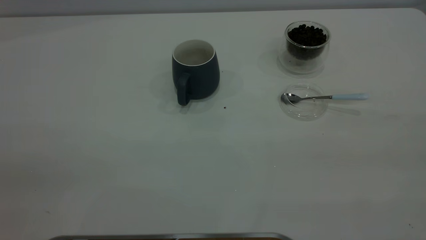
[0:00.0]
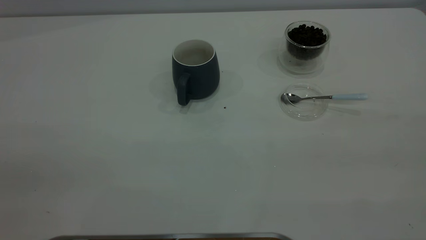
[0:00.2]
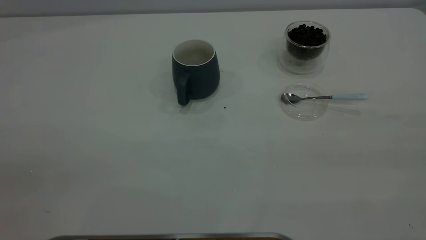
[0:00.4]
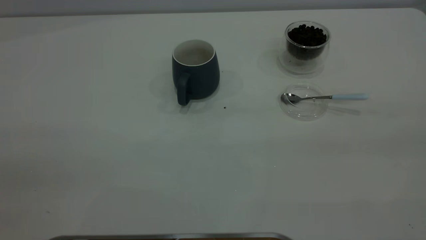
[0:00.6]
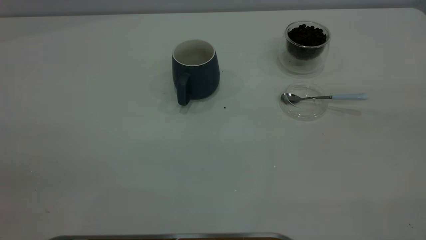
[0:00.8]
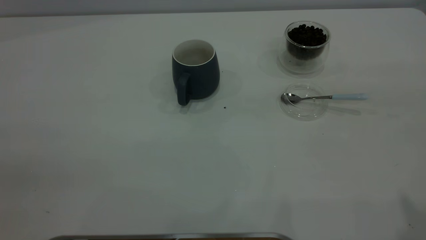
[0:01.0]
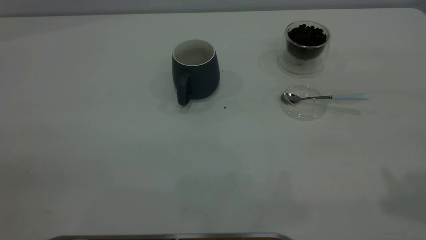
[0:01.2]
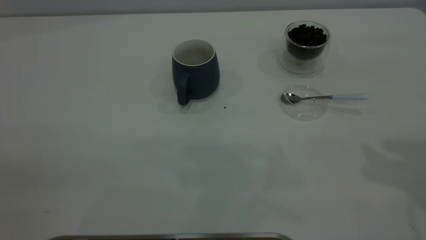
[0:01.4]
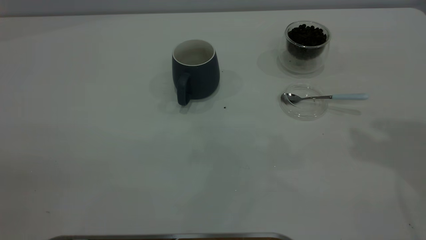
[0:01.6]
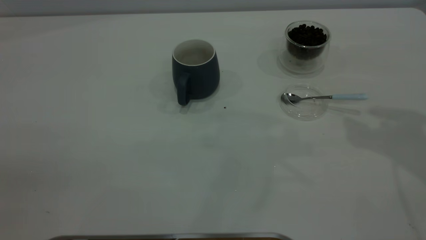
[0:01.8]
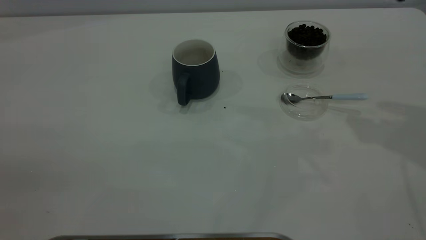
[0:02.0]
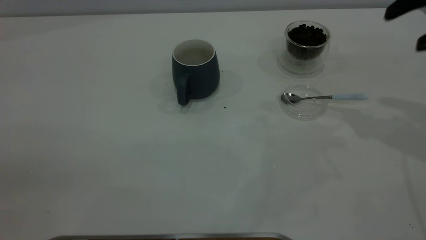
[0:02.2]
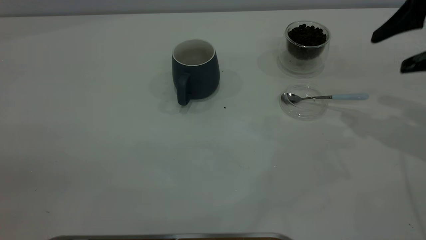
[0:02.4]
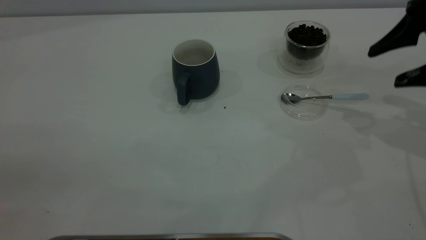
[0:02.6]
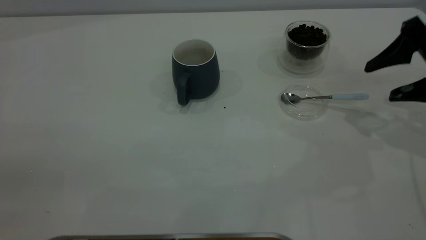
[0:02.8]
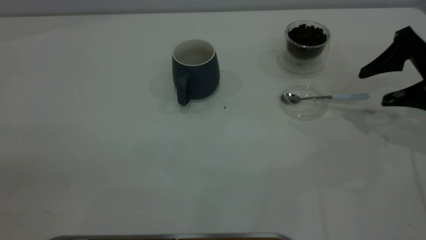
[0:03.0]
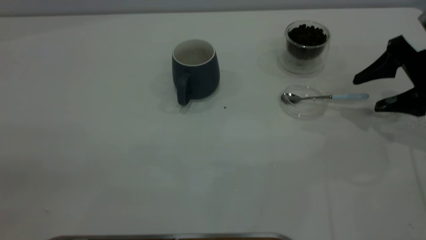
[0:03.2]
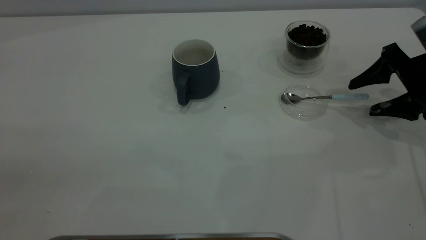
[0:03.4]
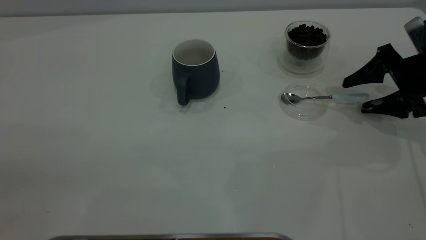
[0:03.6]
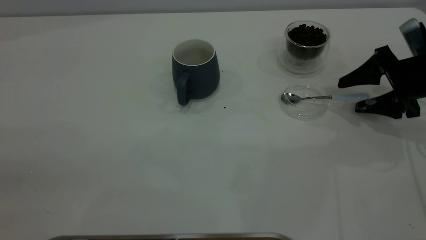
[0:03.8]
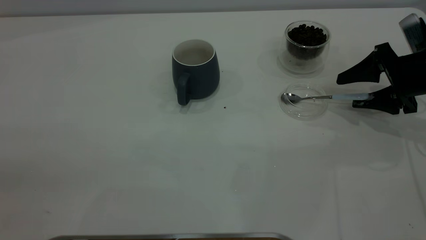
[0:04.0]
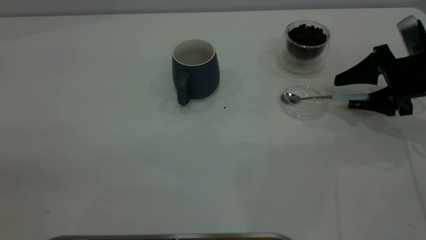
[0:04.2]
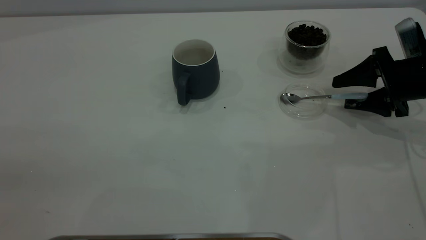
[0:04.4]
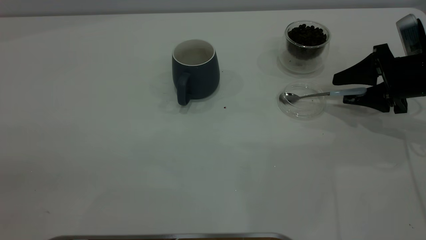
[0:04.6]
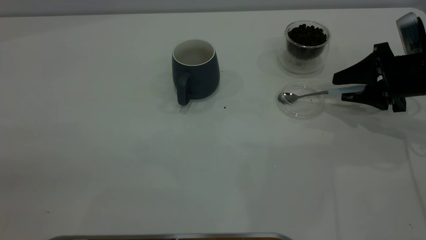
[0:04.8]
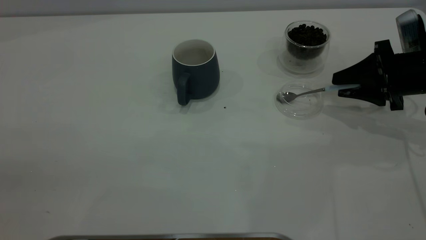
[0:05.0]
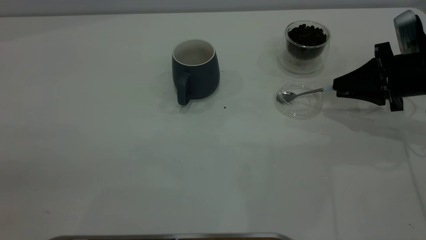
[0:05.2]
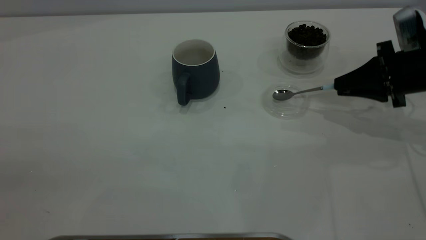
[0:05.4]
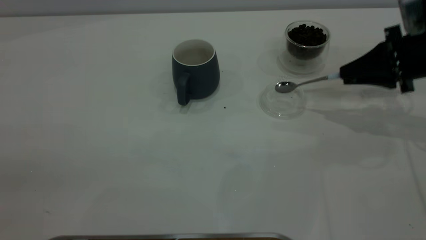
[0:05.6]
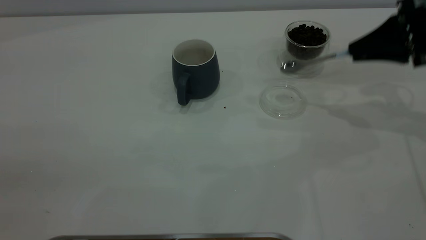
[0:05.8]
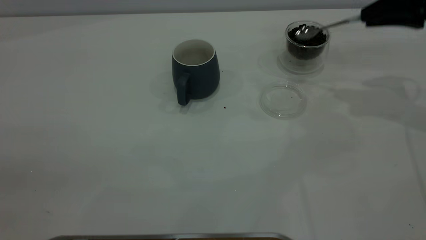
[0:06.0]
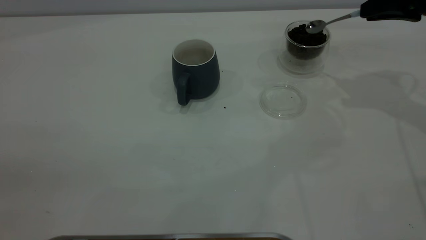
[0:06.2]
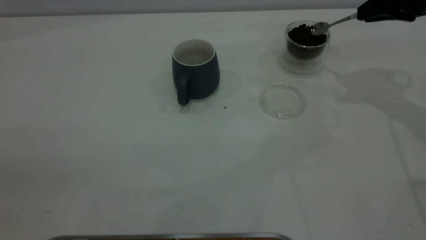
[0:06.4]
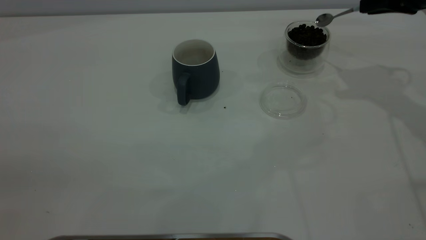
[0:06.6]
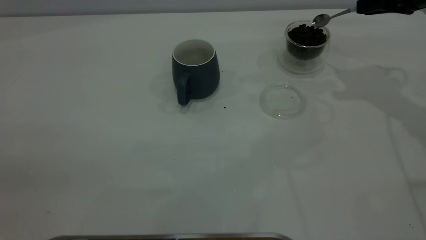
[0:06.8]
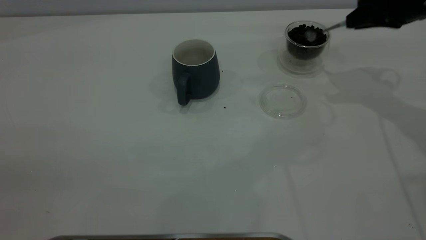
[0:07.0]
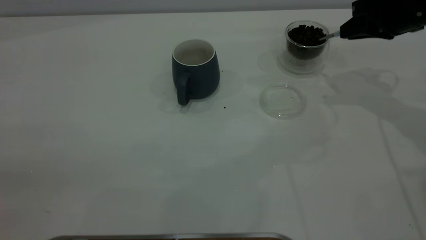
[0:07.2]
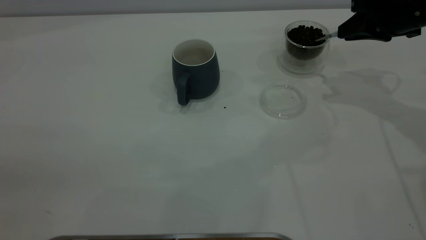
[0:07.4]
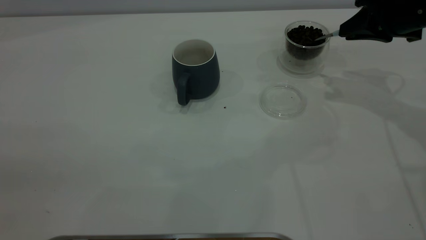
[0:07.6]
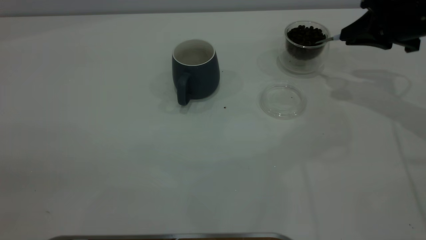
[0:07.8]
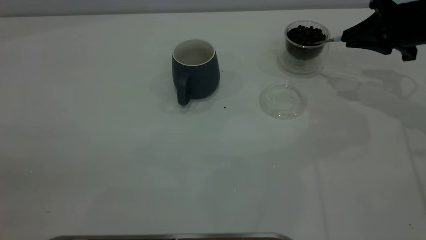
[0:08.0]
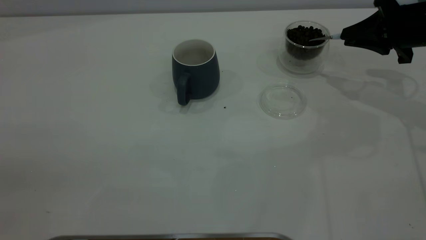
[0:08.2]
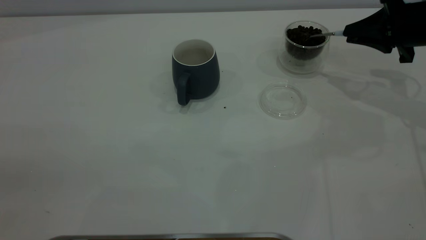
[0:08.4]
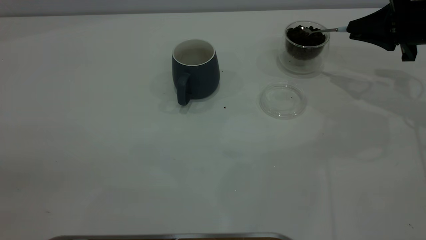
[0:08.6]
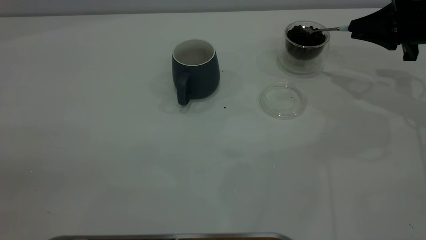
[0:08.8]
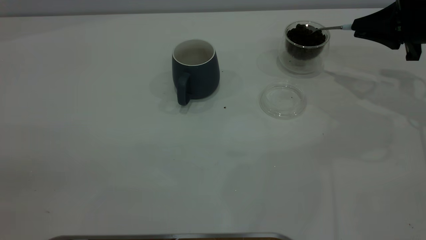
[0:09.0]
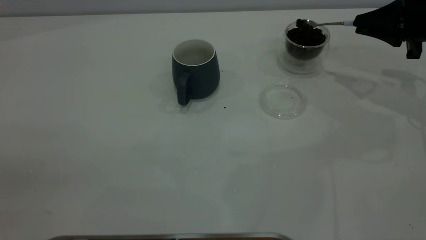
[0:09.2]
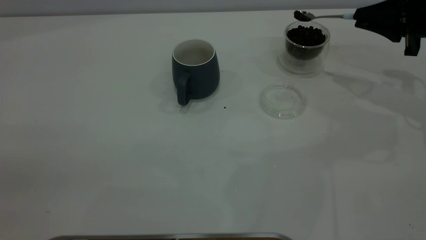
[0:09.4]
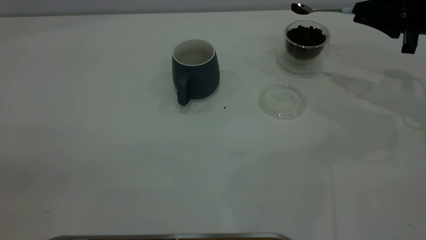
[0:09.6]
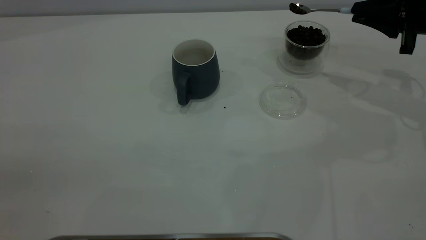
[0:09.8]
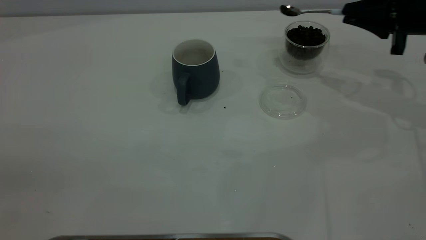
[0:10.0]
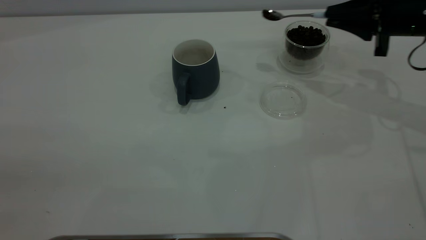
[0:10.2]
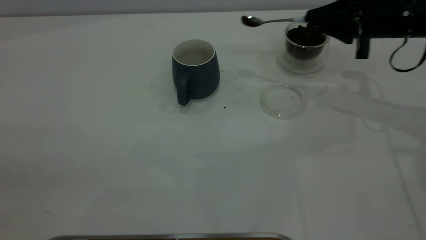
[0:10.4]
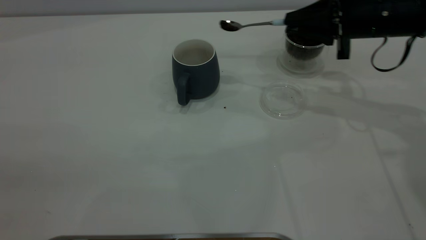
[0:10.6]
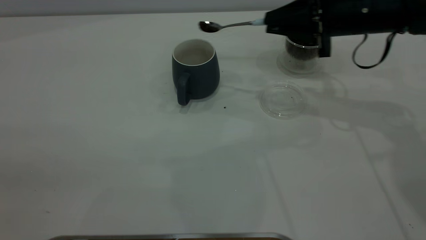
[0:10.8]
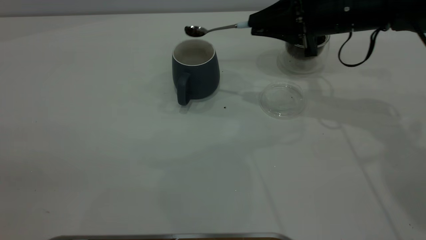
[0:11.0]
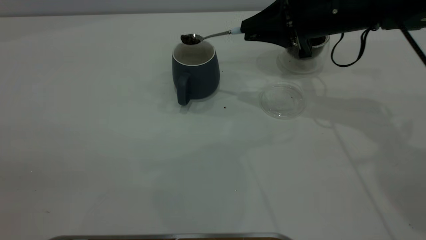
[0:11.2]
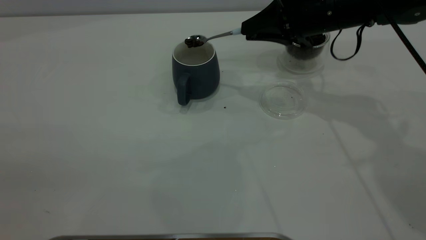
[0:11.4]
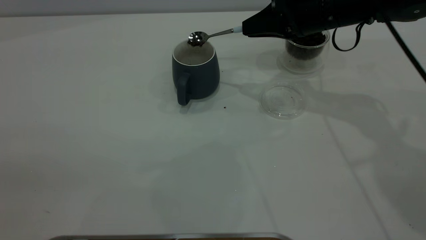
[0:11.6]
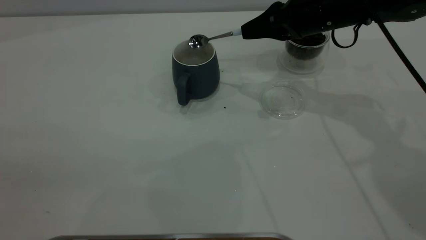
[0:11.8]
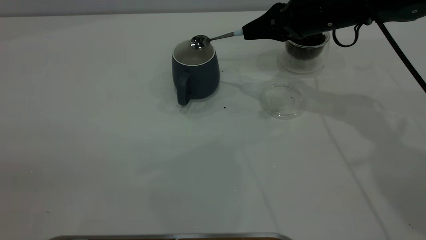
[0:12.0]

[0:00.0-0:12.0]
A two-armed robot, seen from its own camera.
Task of the whole recording: the left gripper place the grey cup in the center of the table, the right gripper take the blue spoon from the cup lid and scoop out the coffee beans from the coffee cup and put them into the grey cup, the right gripper put the spoon back into the cup lid.
Step, 0:00.0 to 0:05.6: Pick up the spoon.
0:01.6 to 0:03.0: The right gripper goes approximately 20 cm downward.
0:03.0 to 0:04.4: The right gripper shifts approximately 5 cm downward.
0:04.4 to 0:06.0: The right gripper heads upward, covering about 15 cm, and closes its fingers.
0:06.0 to 0:07.6: The right gripper ends up roughly 5 cm from where it was.
0:07.6 to 0:09.0: The right gripper shifts by approximately 5 cm.
0:09.0 to 0:10.4: The right gripper heads to the left, covering about 10 cm.
0:10.4 to 0:12.0: The right gripper shifts roughly 10 cm to the left.

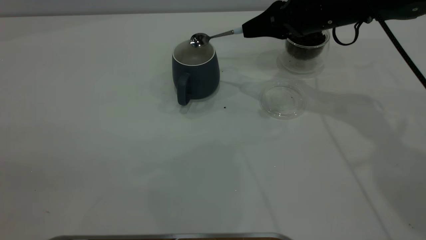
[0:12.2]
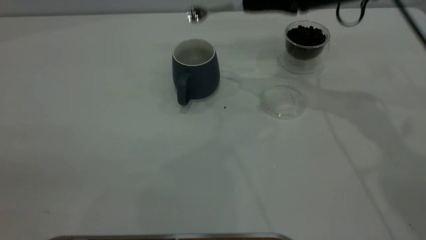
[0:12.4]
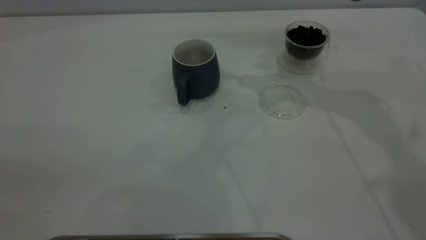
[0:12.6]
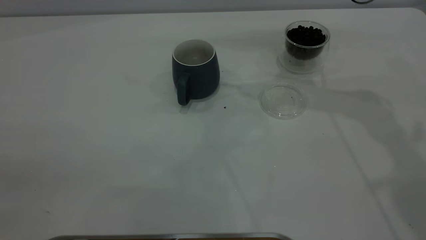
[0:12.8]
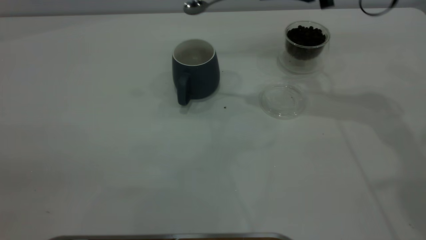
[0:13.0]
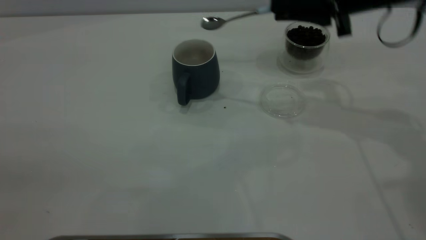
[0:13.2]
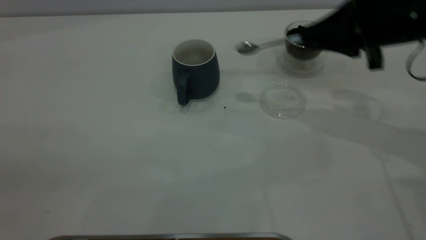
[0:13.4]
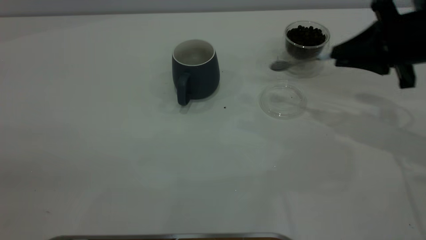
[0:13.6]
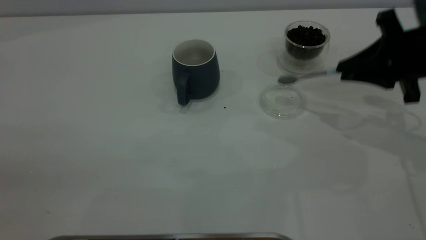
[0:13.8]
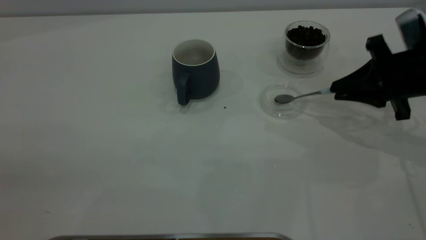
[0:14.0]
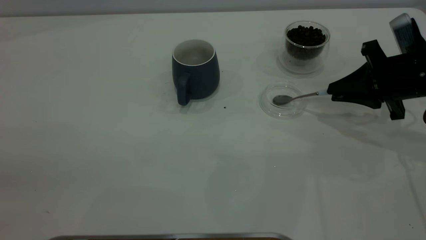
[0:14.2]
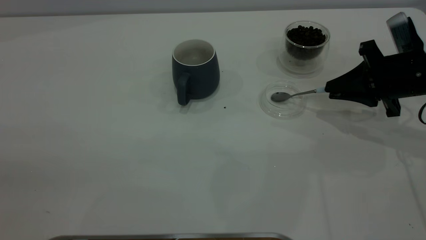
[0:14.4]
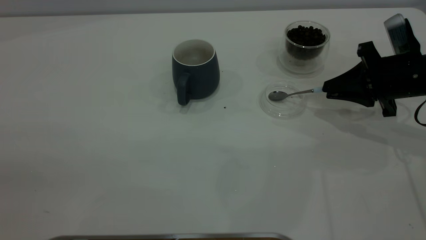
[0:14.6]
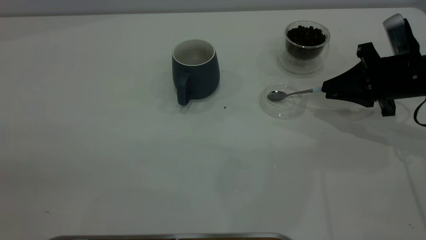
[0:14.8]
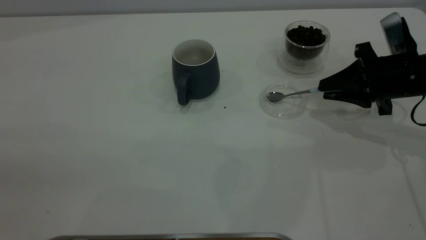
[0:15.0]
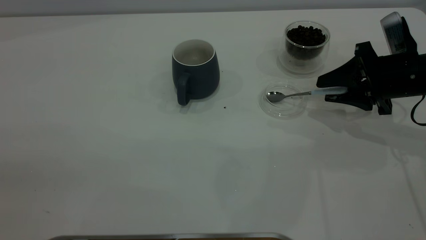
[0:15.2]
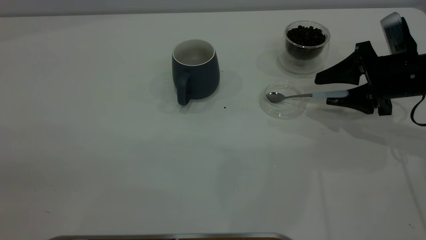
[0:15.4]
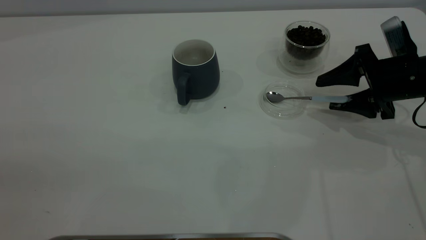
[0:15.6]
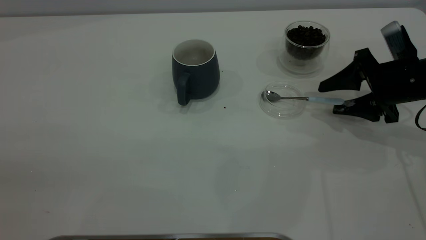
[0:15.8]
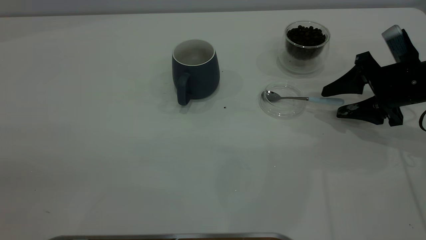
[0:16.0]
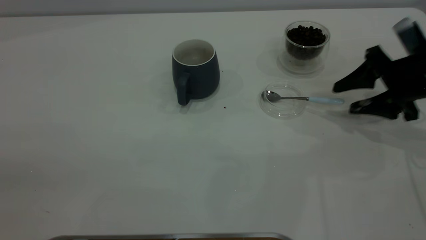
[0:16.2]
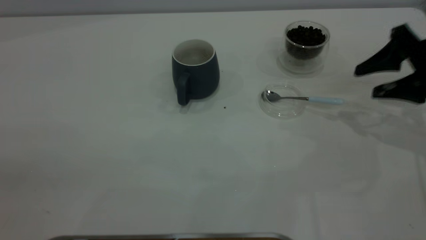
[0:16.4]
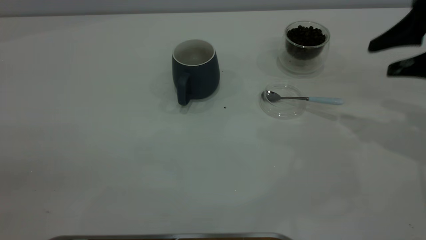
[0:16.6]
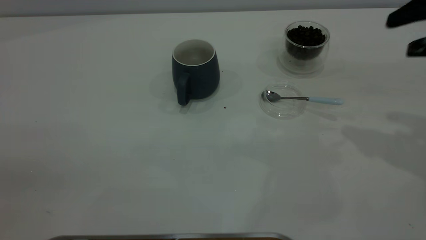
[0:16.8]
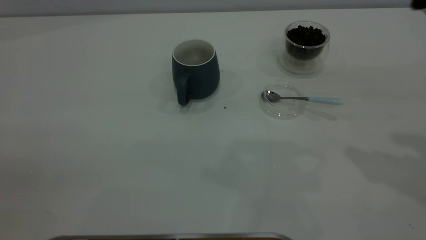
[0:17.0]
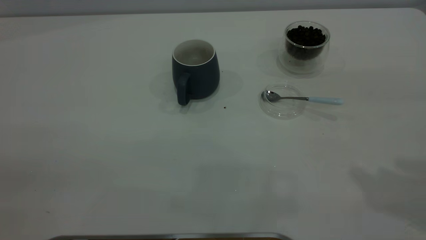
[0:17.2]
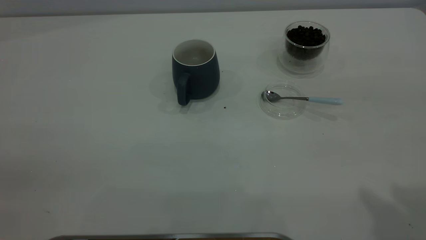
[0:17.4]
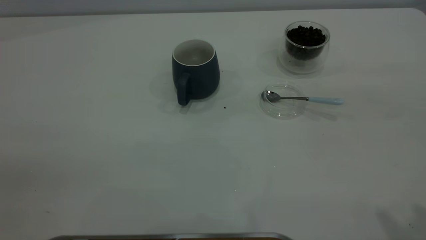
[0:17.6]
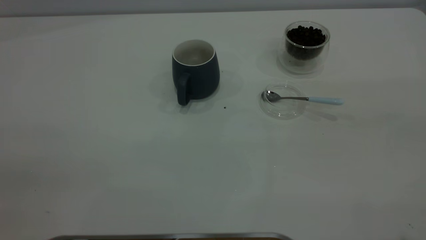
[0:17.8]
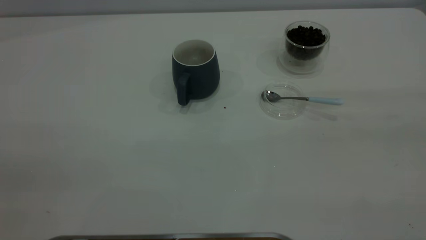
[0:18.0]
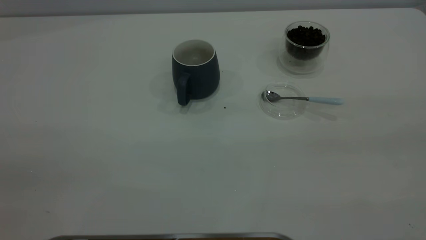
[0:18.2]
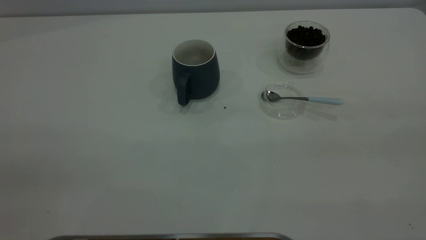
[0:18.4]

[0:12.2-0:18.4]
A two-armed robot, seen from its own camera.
Task of the whole recording: the left gripper place the grey cup in the center of the table, the right gripper take the blue spoon from the cup lid and scoop out the coffee beans from the coffee cup and put them into the grey cup, the right gripper put the spoon back into the cup lid.
Step, 0:12.4 to 0:16.2: Place the spoon back in its original place.
0:12.2 to 0:13.8: The right gripper moves to the right and backward, about 15 cm.
0:13.8 to 0:15.4: The right gripper moves approximately 5 cm, and opens its fingers.
0:15.4 to 0:16.8: The right gripper shifts about 20 cm upward and backward.
0:16.8 to 0:18.4: The right gripper shifts approximately 30 cm backward and upward.
